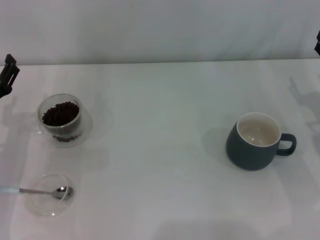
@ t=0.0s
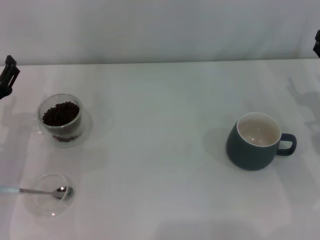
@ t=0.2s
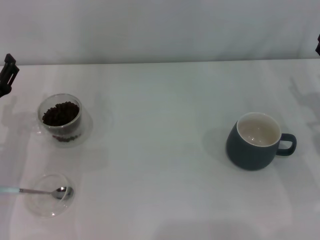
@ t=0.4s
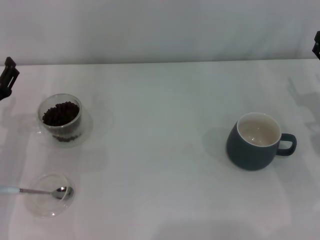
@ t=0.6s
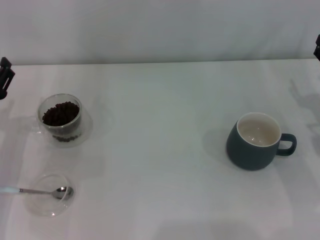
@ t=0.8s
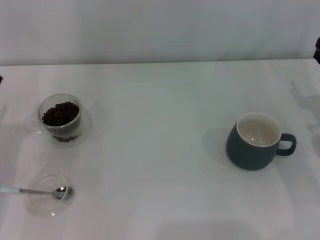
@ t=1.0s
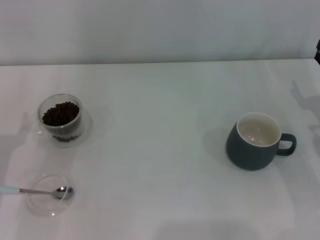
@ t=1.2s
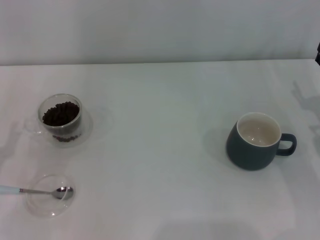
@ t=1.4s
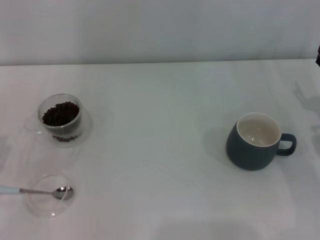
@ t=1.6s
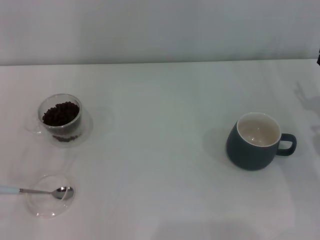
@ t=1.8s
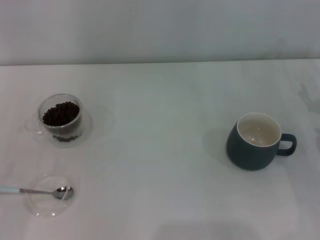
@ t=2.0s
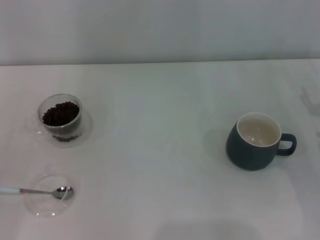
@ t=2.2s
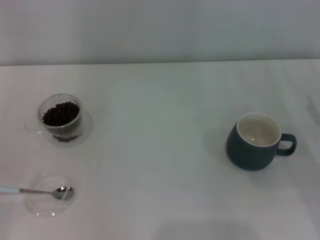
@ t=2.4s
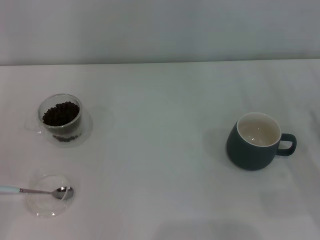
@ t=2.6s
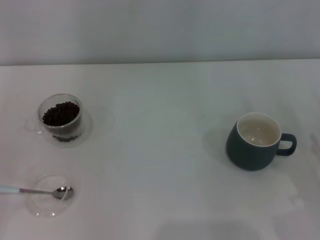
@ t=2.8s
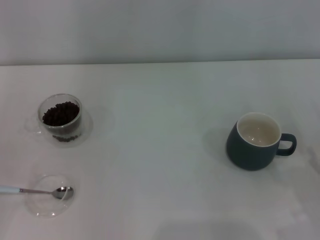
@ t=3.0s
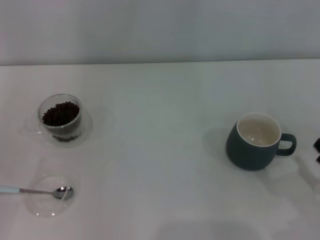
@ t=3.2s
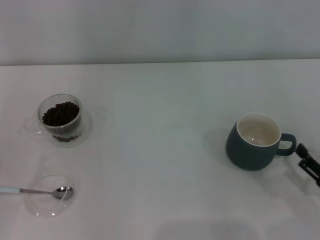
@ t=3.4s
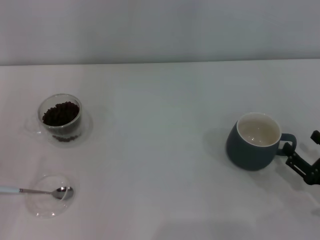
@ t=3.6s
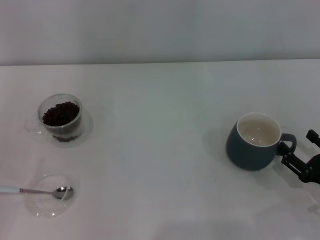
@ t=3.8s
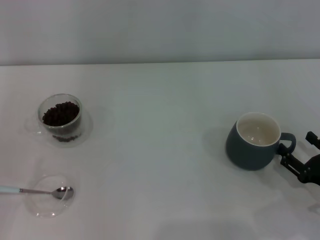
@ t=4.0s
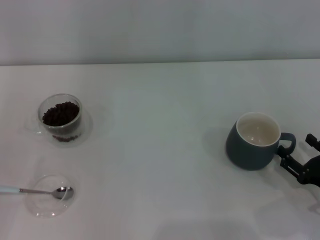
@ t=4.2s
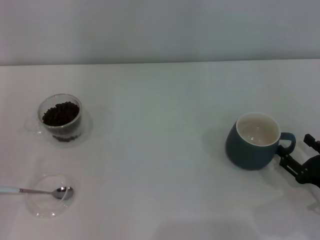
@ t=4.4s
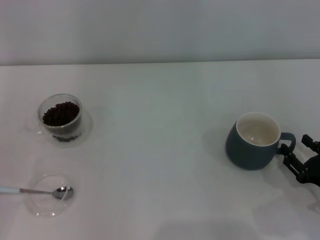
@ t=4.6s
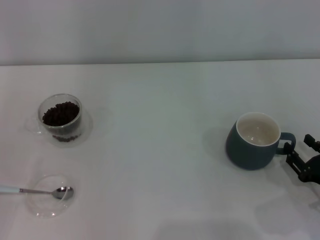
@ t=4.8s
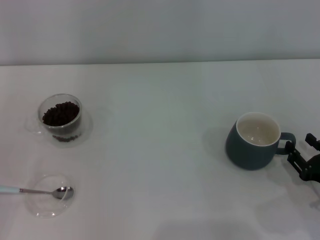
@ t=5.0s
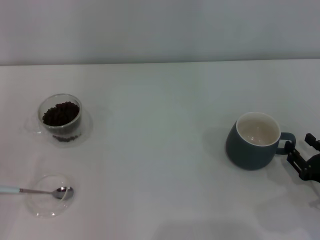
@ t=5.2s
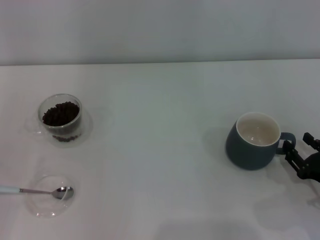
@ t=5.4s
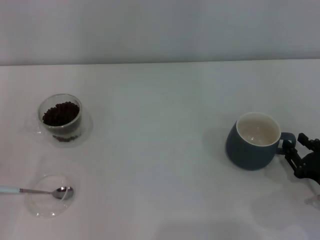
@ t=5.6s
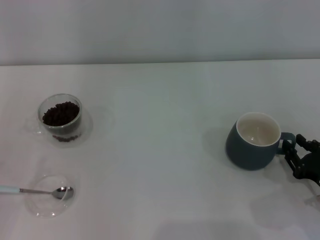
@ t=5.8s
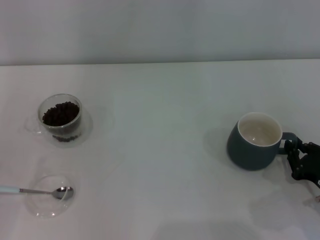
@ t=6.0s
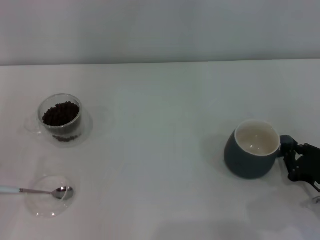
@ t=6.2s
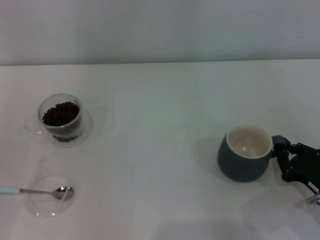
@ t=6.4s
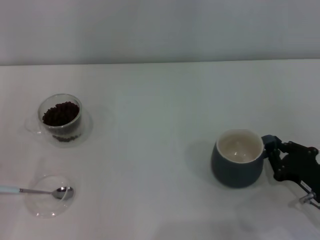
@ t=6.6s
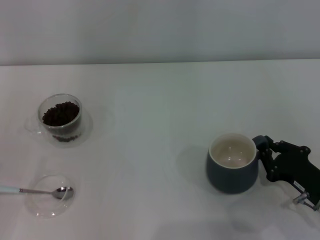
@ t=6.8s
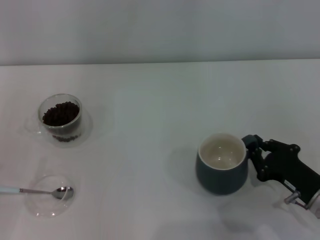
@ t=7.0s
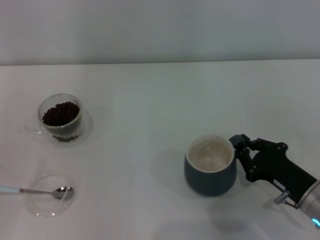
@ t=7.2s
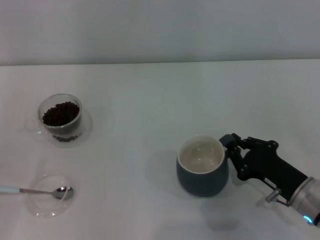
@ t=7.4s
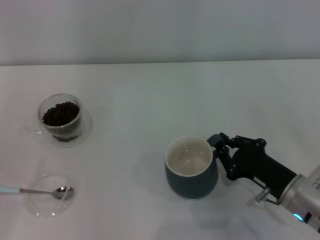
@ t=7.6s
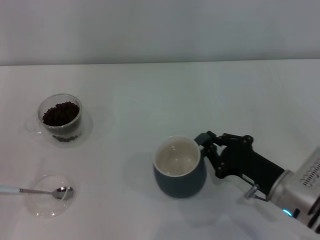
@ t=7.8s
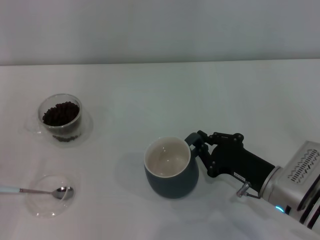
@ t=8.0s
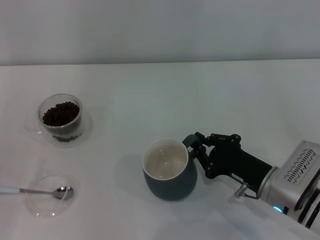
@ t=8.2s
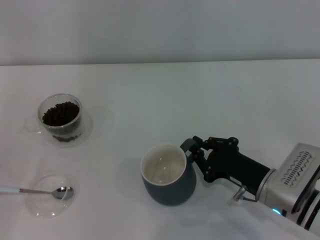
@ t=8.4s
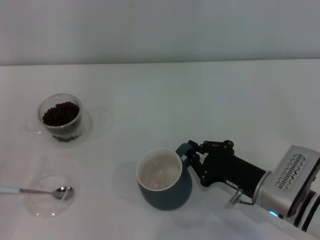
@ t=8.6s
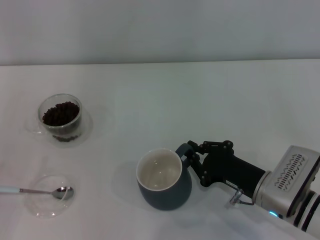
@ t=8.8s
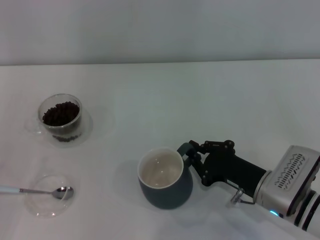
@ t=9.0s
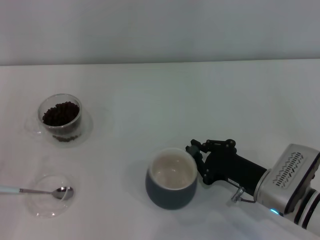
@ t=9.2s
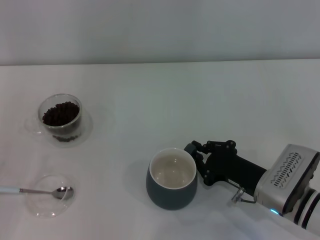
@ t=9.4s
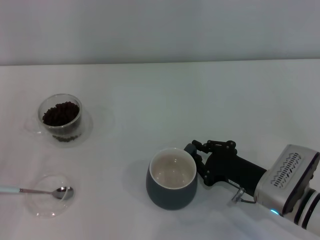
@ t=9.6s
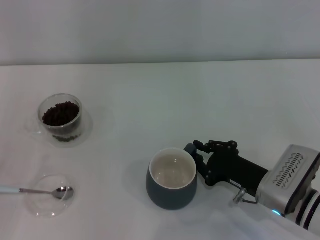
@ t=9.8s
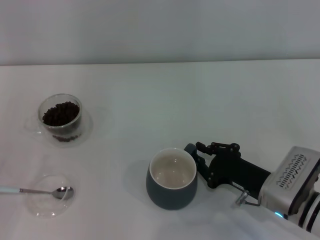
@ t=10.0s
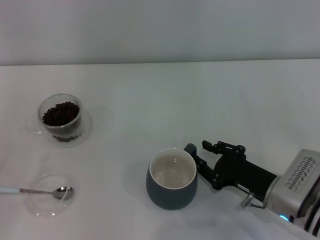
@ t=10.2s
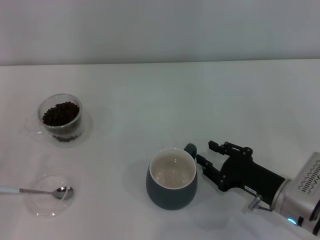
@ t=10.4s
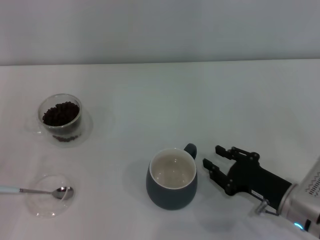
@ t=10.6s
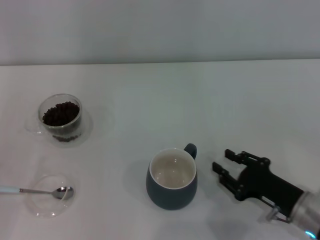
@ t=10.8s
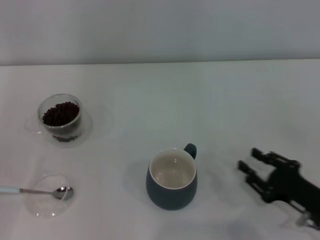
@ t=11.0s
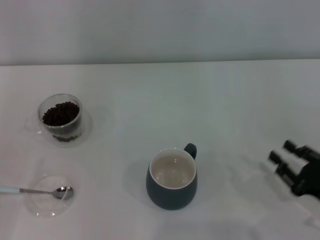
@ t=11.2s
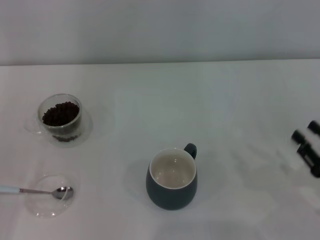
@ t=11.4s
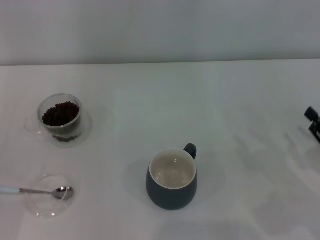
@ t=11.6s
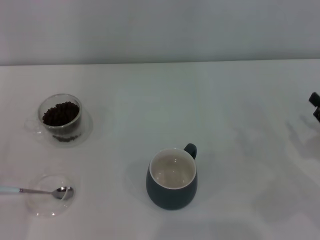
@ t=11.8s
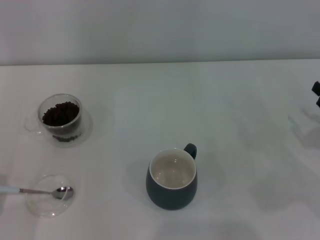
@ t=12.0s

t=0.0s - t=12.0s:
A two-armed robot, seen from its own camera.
Task of the whole recording: Use a blue spoon to take out the coffee beans from the glass and pour them into the gray cup.
Step, t=0.0s - t=10.8s: Move the cup to the center of view with the left gripper.
t=0.0s - t=1.6s: The left gripper shifts approximately 10 cm backward.
t=3.0s - t=4.4s: The right gripper moves about 5 cm.
t=4.4s - t=6.0s: The right gripper closes up.
t=6.0s - t=7.6s: The right gripper heads to the left, covering some 10 cm.
t=7.6s - t=9.0s: There are only small adjustments of the grippers.
t=9.0s - t=10.4s: The right gripper opens its fingers.
t=10.4s - t=12.0s: The right gripper heads to the right, covering about 15 cm. Meanwhile the left gripper moves to the right and downward, some 10 cm.

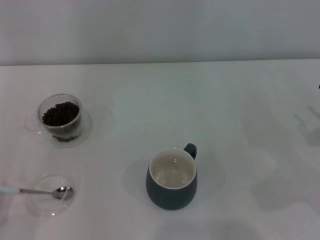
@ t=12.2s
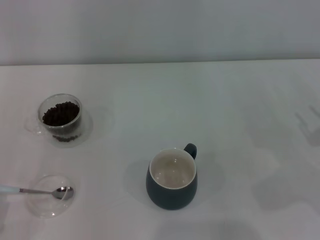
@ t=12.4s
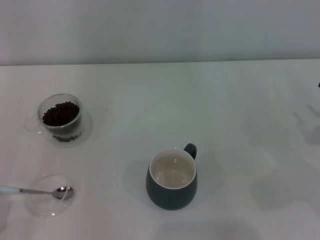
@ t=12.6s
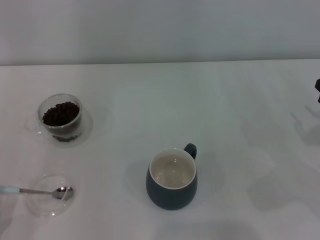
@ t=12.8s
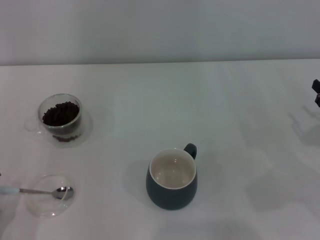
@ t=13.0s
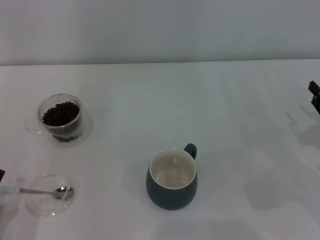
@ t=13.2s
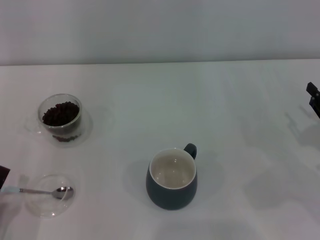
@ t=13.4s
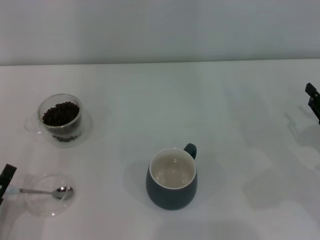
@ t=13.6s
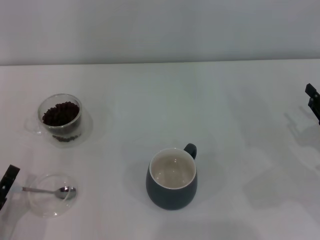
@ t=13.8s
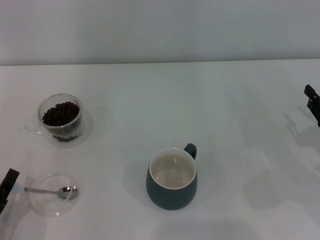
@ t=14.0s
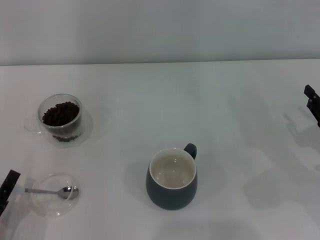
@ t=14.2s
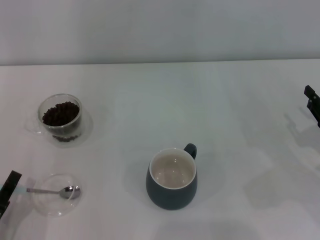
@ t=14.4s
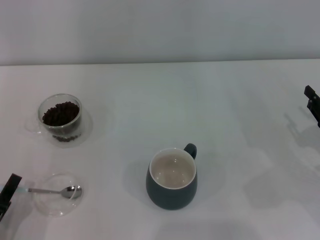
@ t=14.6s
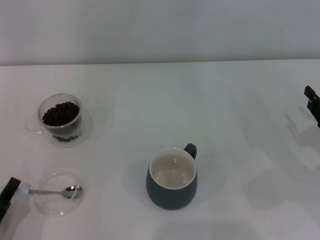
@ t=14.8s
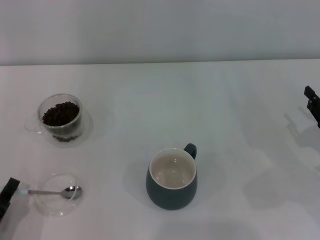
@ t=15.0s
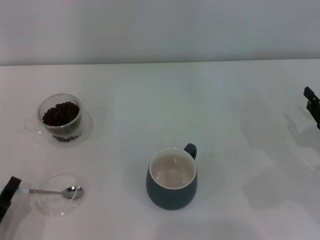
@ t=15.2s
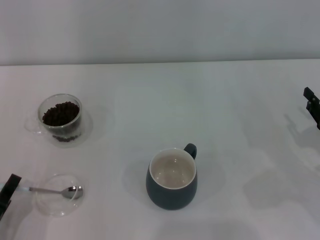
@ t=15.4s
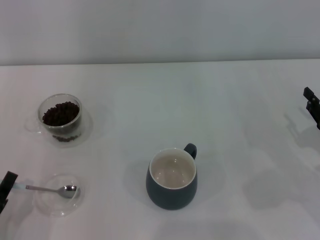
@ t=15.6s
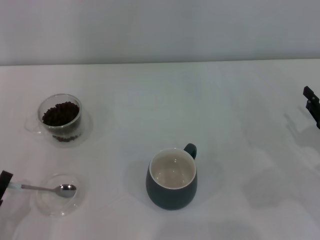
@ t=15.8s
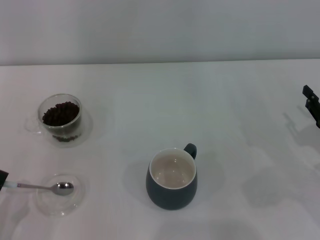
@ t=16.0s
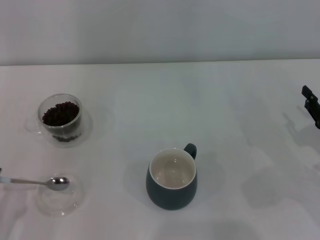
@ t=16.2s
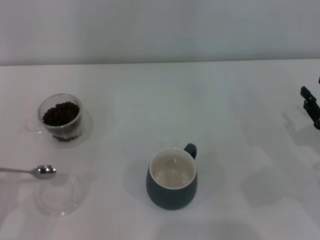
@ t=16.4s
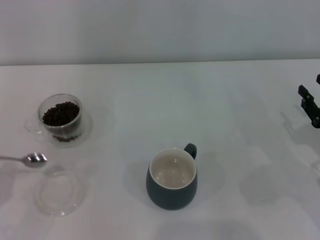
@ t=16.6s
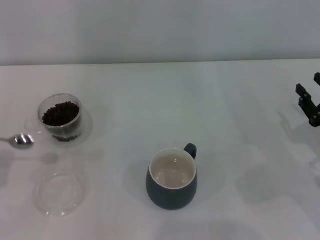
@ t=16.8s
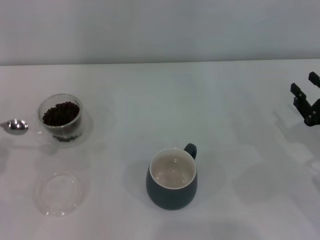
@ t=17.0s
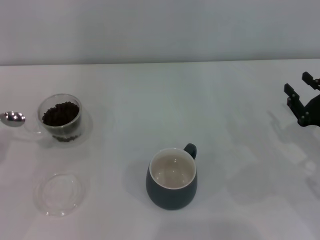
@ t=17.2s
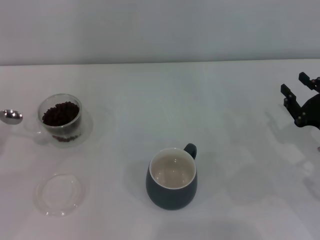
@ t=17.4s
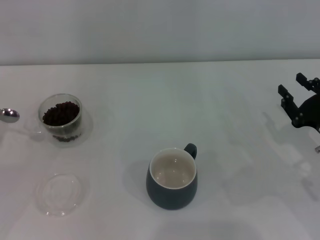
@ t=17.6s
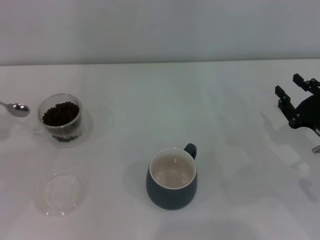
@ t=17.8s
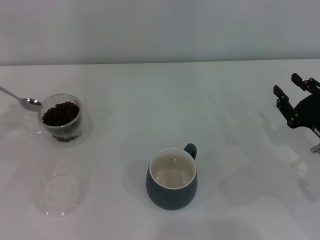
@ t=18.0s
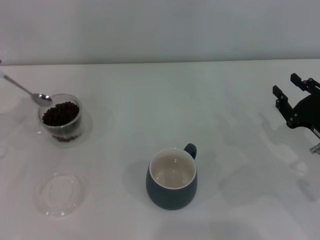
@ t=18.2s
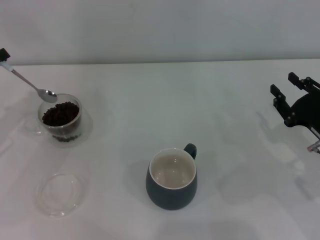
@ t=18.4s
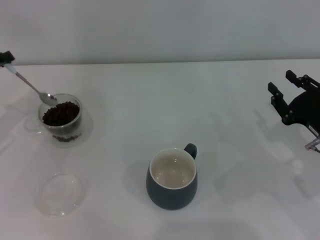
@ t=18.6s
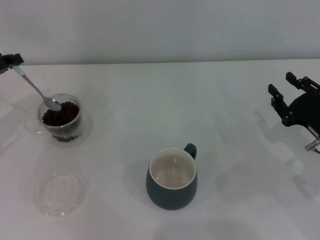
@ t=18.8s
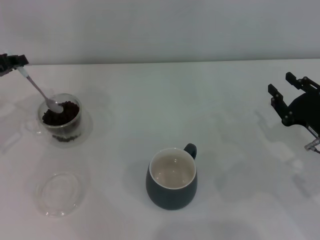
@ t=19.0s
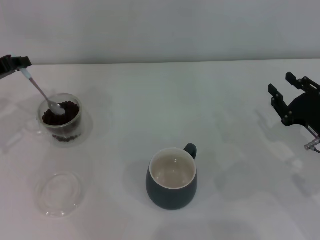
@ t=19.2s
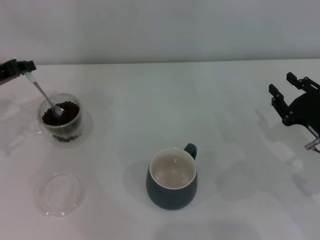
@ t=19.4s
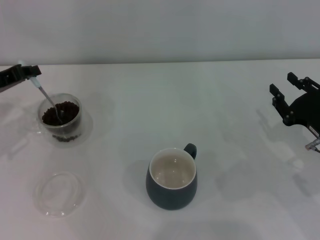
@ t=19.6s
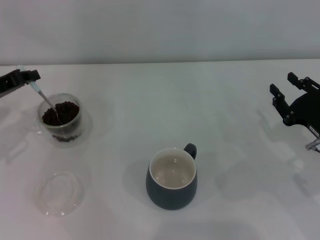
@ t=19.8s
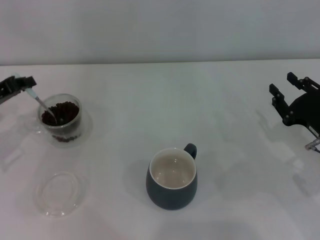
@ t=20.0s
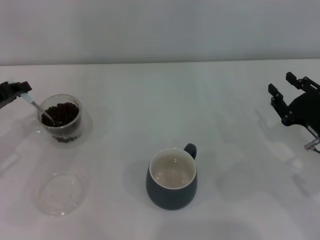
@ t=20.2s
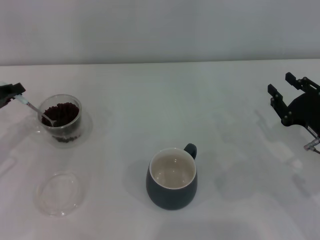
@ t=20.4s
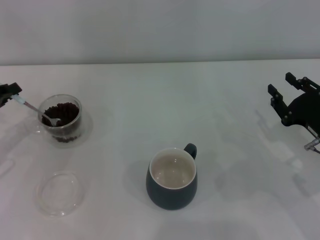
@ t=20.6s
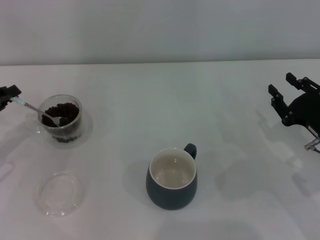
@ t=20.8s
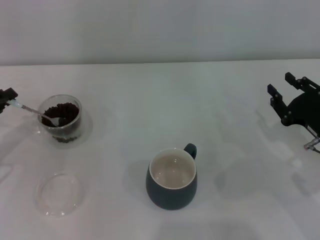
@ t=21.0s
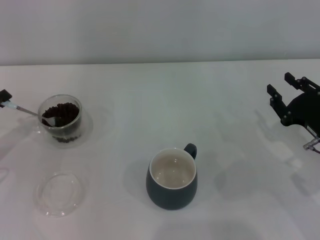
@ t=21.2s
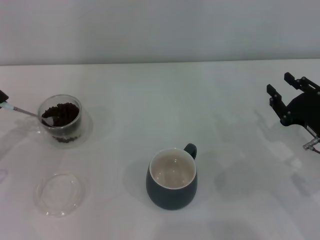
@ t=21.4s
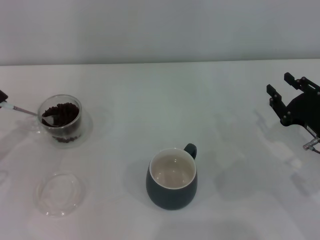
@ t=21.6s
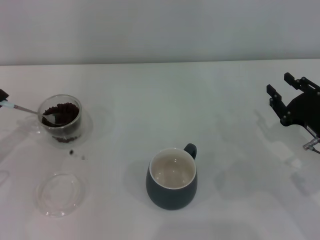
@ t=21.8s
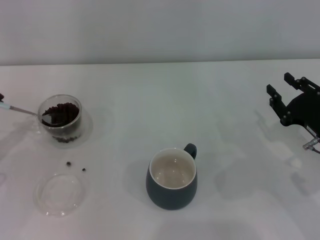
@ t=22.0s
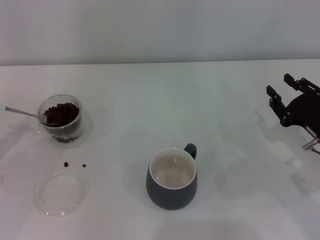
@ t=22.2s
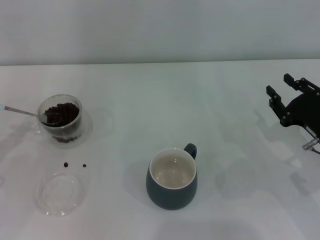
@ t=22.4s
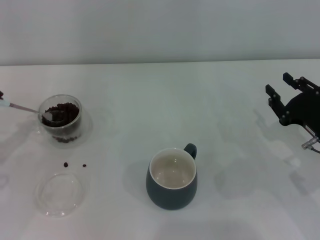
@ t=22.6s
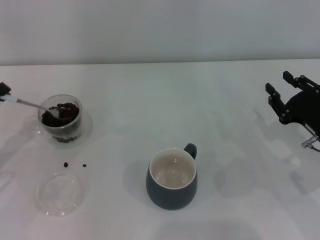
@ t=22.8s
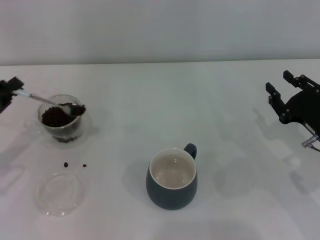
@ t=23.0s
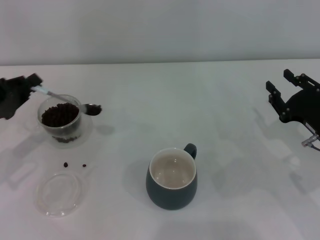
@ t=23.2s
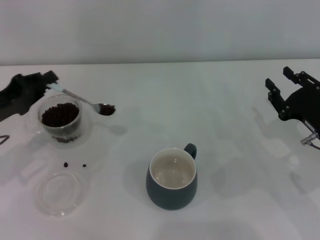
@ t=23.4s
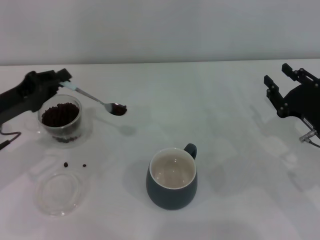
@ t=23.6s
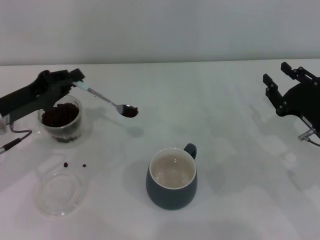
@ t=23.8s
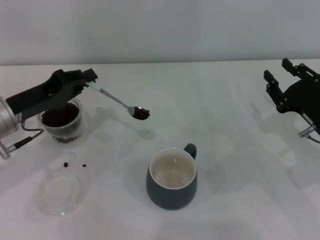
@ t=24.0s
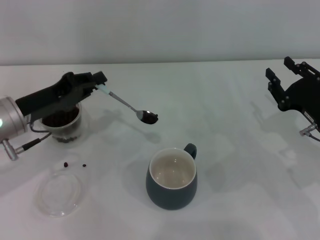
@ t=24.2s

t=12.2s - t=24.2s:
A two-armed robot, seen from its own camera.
Task of the whole recording: Use a blue spoon to take out the coffee beans from the glass and pour them into the gray cup.
Step, t=12.2s - t=16.4s: Pick up the spoon with the right gripper.
t=12.2s - t=13.8s: The grippers move only a little.
t=13.8s - t=15.2s: The left gripper closes.
t=15.2s - t=16.6s: The left gripper shifts by some 5 cm.
t=16.6s - t=18.2s: The left gripper is displaced forward and upward by approximately 20 cm.
t=18.2s - t=19.8s: The left gripper ends up approximately 5 cm from where it was.
t=19.8s - t=21.2s: The left gripper moves backward, about 5 cm.
t=21.2s - t=22.6s: The grippers move only a little.
t=22.6s - t=24.2s: The left gripper shifts some 15 cm to the right and forward.
